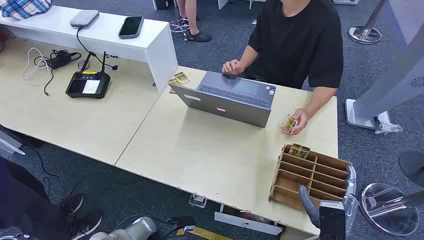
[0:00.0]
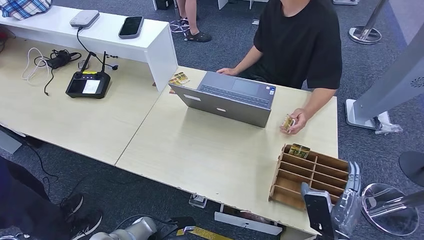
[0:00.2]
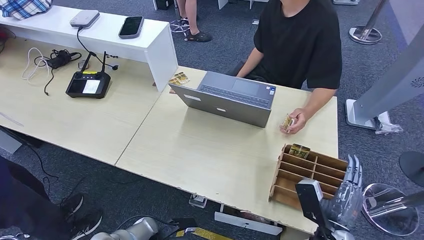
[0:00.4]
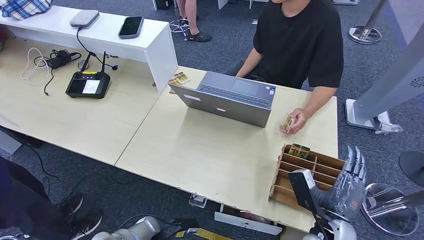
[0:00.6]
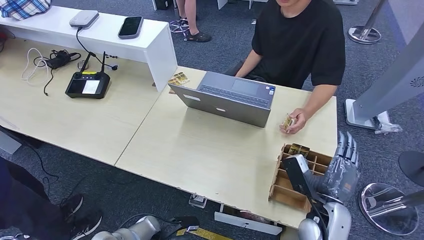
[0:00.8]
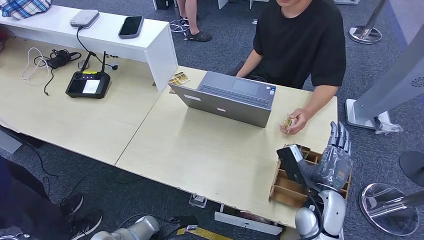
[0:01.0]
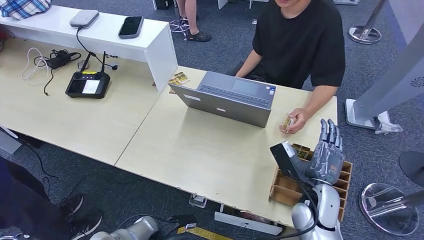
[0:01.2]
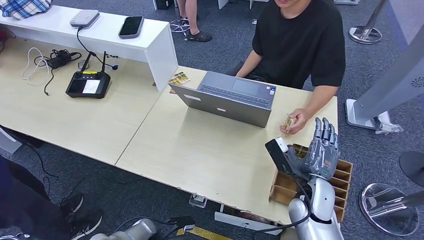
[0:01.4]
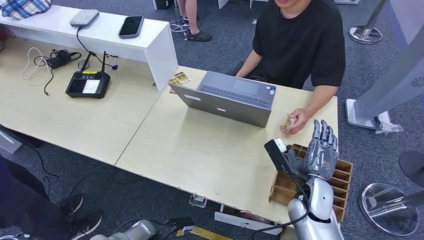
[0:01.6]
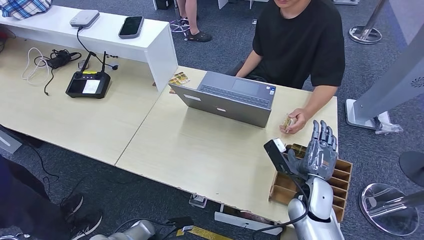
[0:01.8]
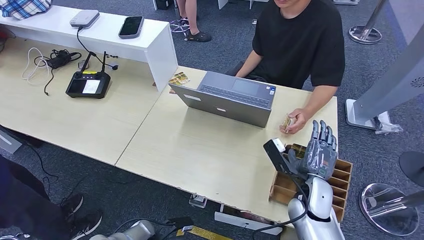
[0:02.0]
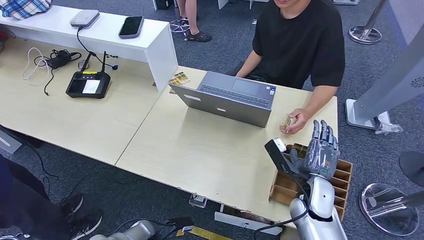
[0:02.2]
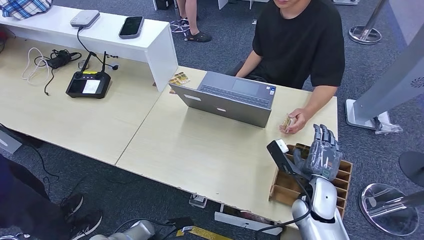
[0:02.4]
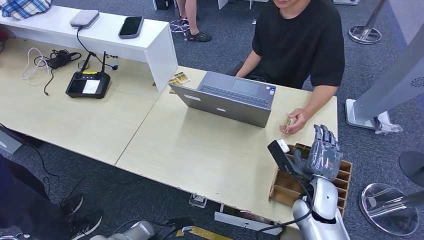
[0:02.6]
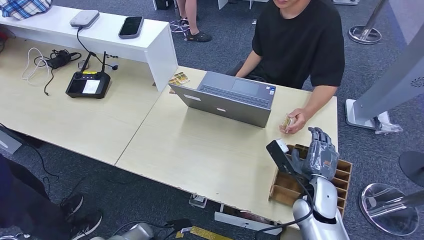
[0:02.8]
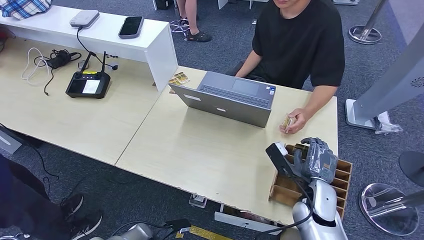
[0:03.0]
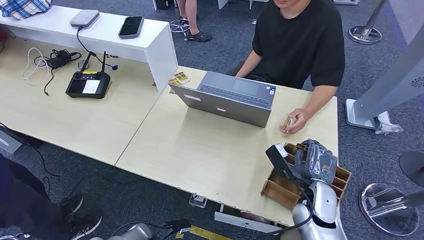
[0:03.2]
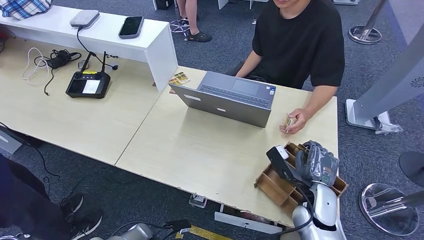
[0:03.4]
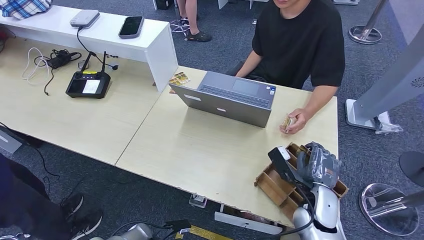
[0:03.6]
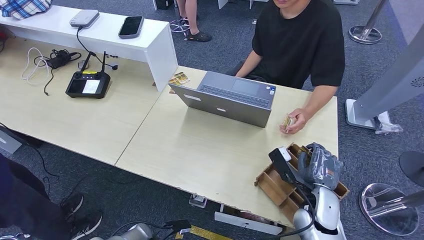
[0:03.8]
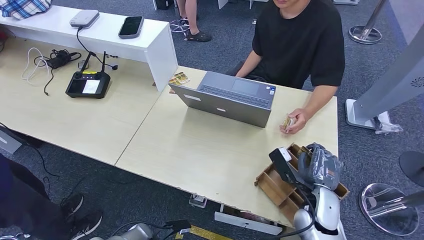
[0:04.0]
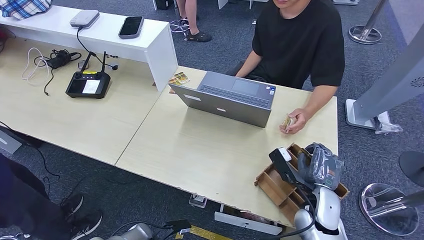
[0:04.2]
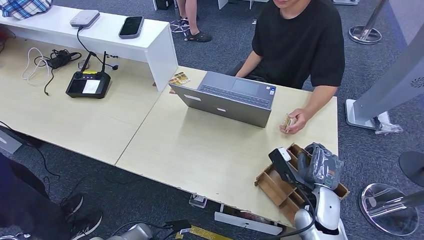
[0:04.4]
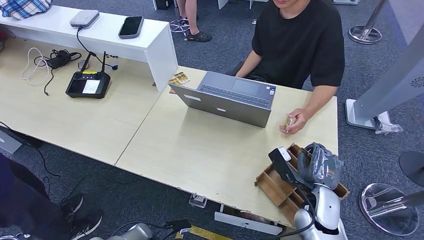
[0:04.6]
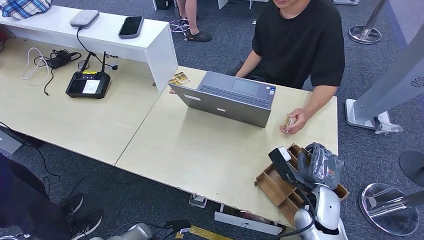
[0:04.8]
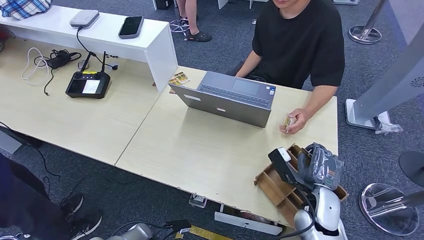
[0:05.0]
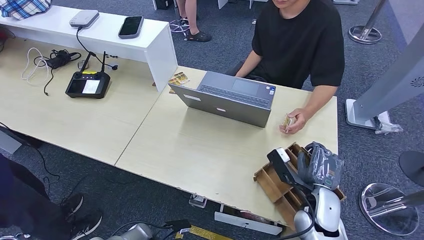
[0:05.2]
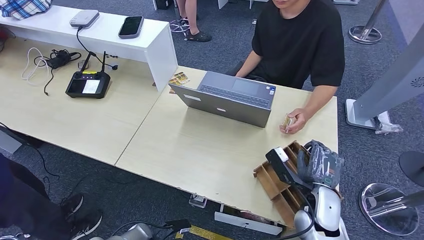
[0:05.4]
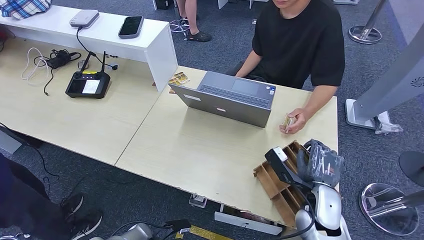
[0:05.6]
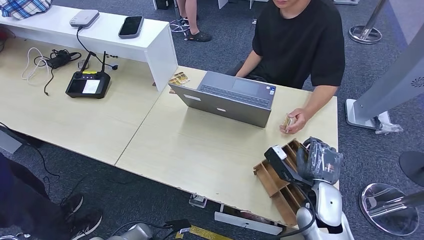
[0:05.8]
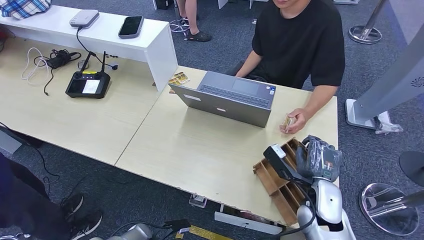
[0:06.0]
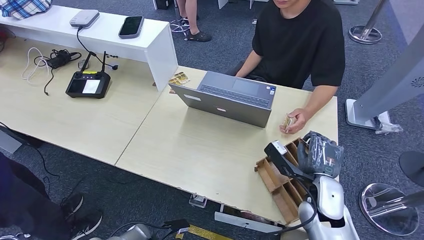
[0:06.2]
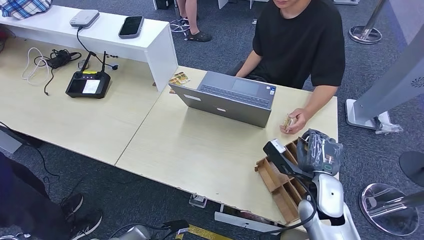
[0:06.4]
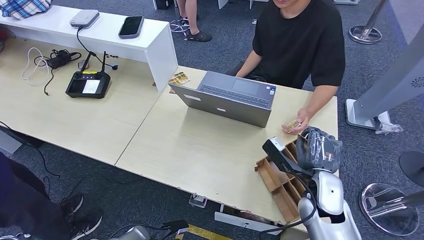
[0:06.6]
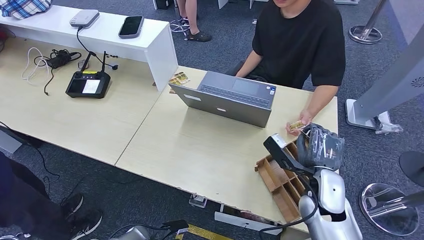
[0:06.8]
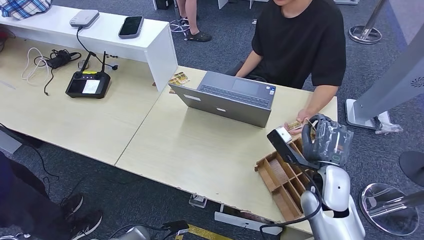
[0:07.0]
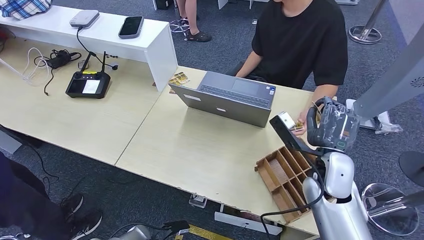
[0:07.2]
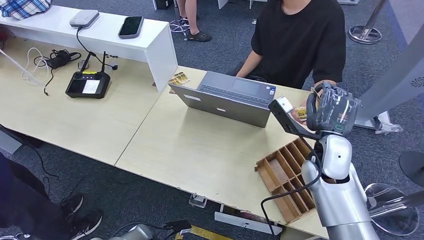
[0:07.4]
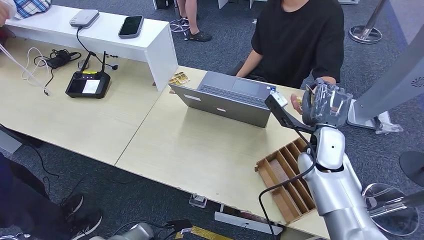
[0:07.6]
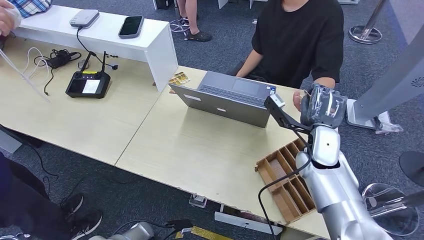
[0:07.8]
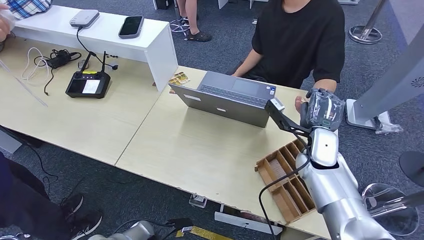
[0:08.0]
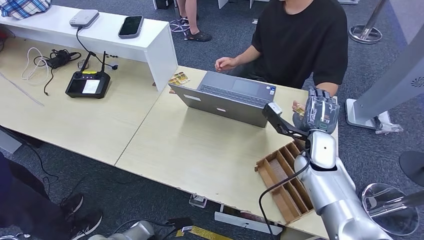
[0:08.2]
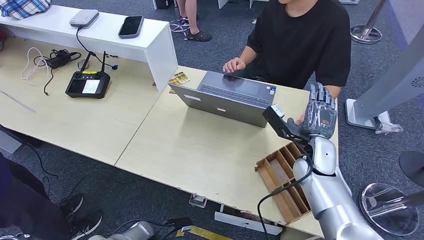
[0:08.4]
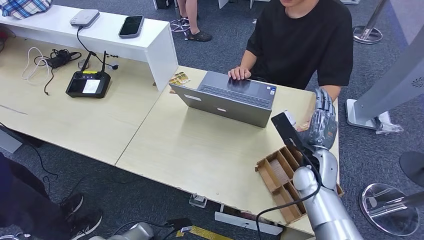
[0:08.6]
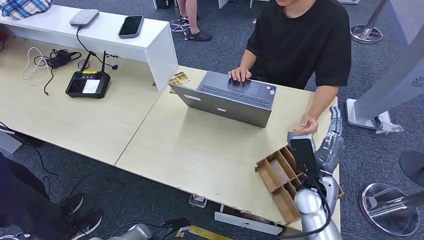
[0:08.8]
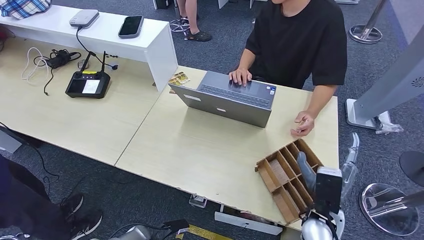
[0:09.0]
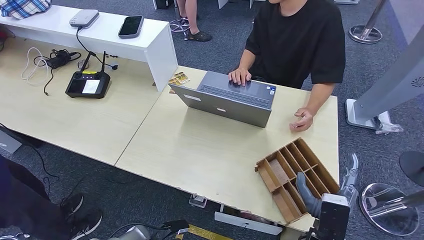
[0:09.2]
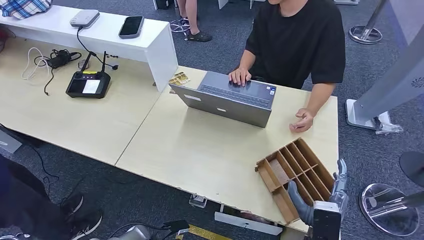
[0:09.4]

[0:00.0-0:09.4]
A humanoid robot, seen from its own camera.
Step, 0:00.0 to 0:04.4: Pick up the room card from the card holder.
Step, 0:04.6 to 0:09.2: Hand the room card to the target.
0:01.6 to 0:03.2: There are only small adjustments of the hands.
0:03.2 to 0:04.8: Neither hand changes place.
0:04.8 to 0:06.2: The hands move only a little.
0:06.2 to 0:07.8: The right hand shifts about 10 cm forward and upward.
0:07.8 to 0:09.4: The right hand goes some 25 cm backward and downward.
